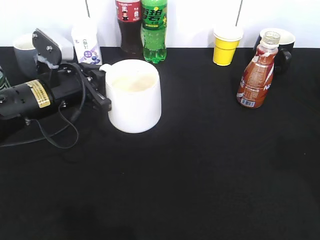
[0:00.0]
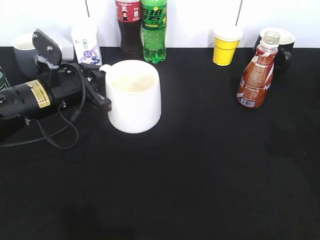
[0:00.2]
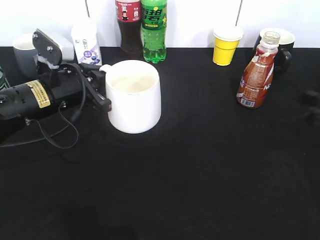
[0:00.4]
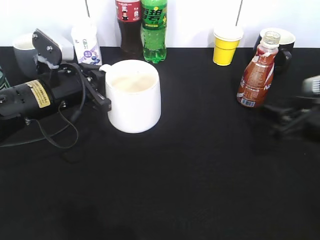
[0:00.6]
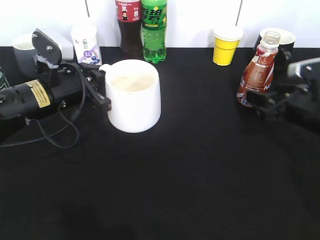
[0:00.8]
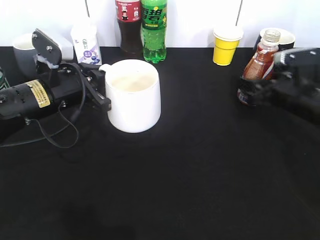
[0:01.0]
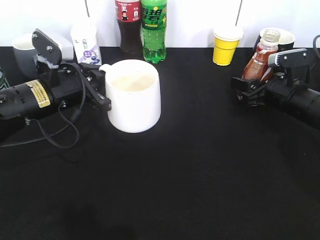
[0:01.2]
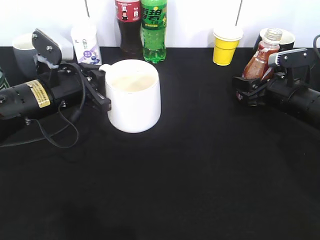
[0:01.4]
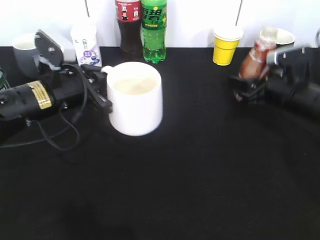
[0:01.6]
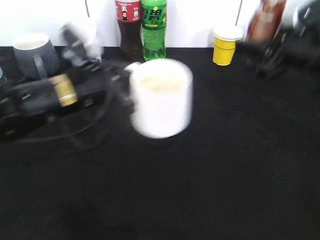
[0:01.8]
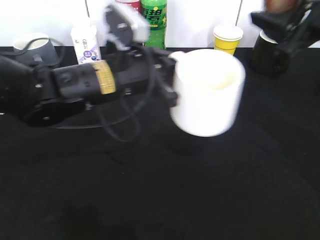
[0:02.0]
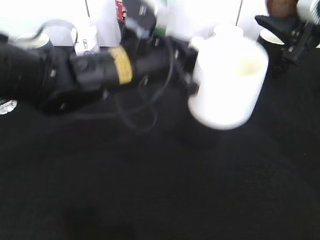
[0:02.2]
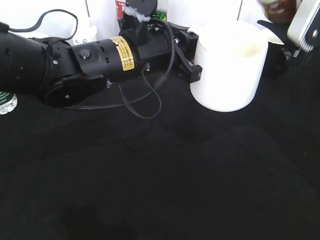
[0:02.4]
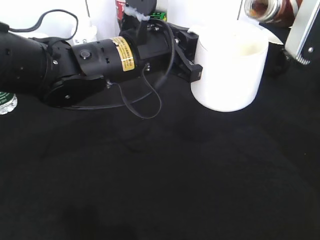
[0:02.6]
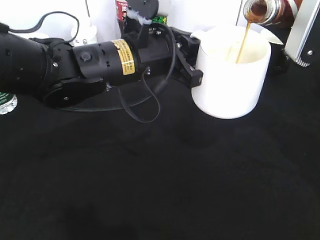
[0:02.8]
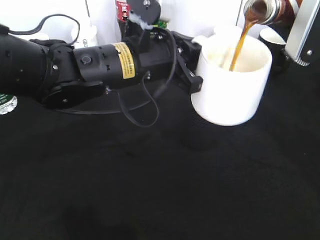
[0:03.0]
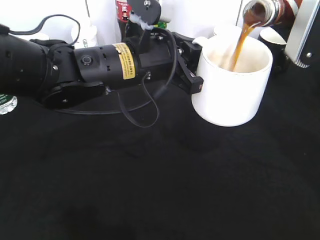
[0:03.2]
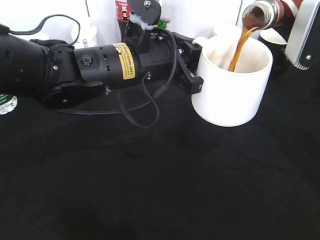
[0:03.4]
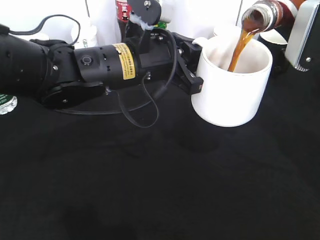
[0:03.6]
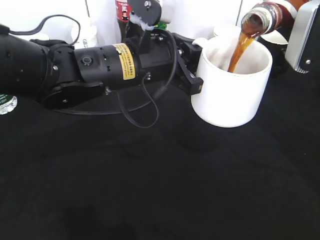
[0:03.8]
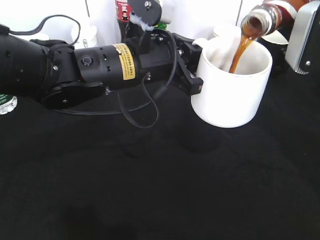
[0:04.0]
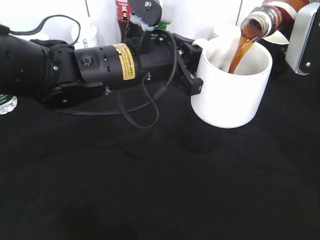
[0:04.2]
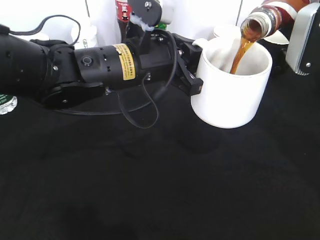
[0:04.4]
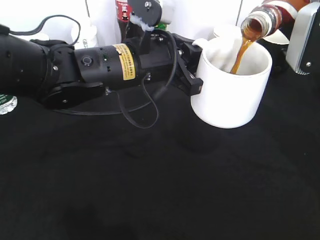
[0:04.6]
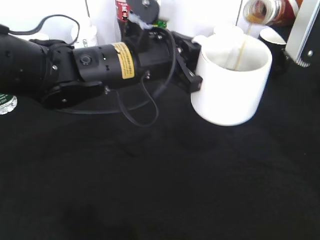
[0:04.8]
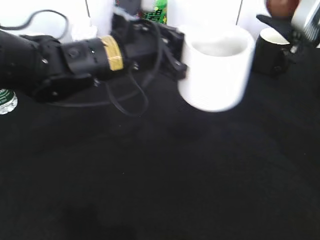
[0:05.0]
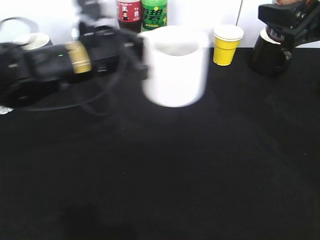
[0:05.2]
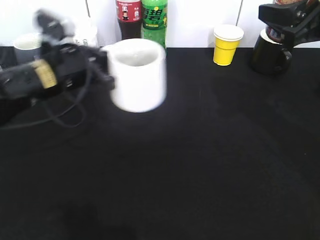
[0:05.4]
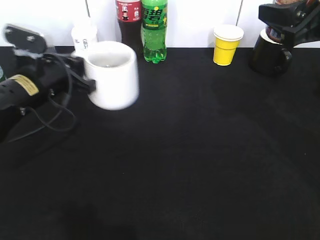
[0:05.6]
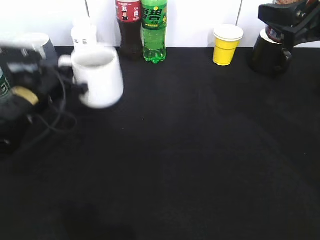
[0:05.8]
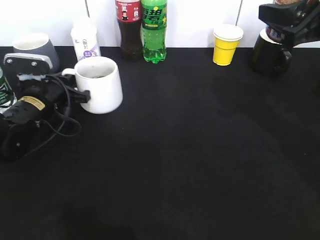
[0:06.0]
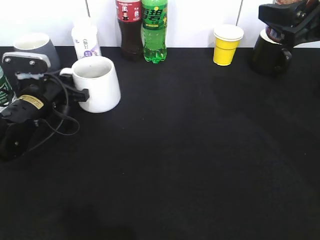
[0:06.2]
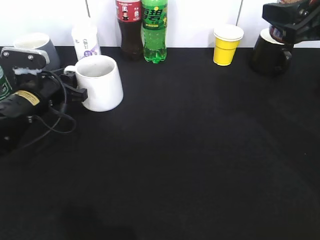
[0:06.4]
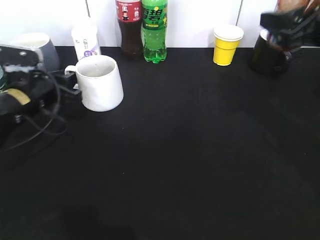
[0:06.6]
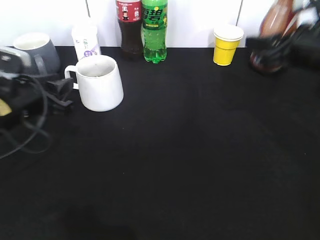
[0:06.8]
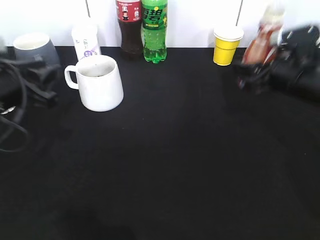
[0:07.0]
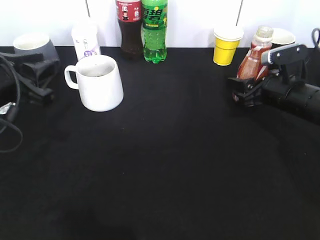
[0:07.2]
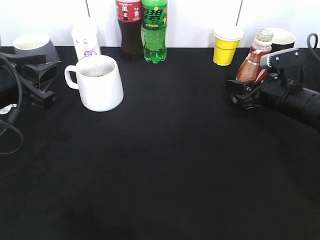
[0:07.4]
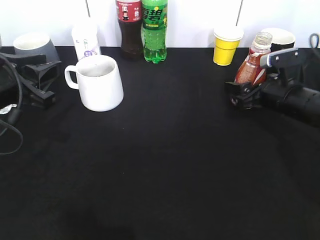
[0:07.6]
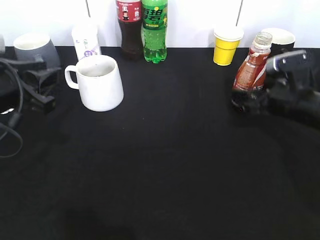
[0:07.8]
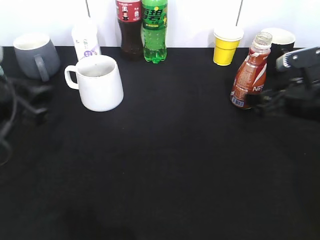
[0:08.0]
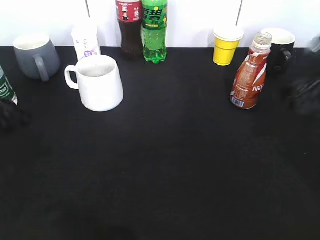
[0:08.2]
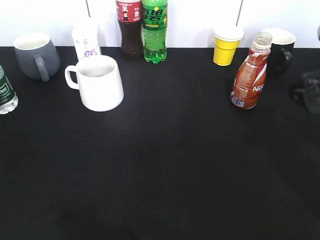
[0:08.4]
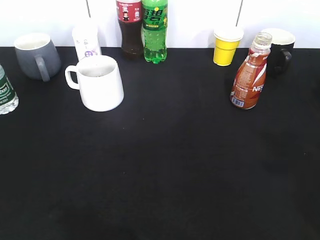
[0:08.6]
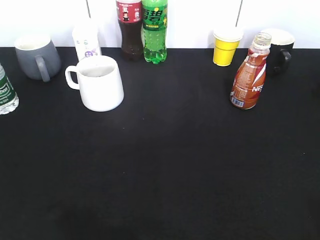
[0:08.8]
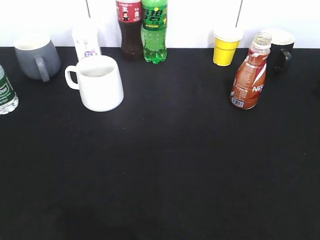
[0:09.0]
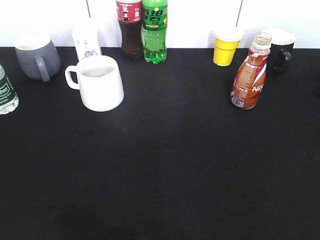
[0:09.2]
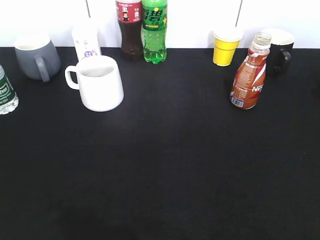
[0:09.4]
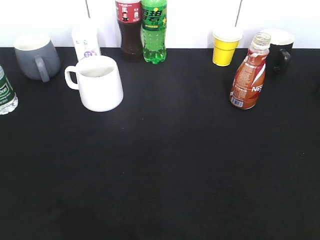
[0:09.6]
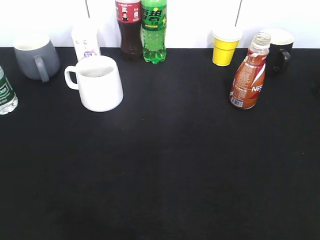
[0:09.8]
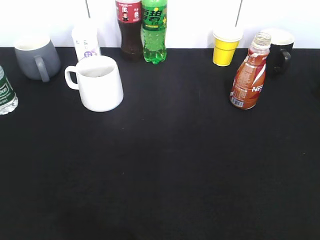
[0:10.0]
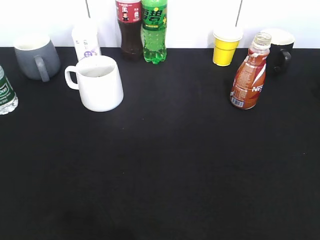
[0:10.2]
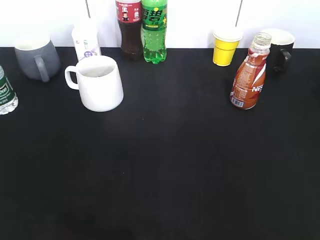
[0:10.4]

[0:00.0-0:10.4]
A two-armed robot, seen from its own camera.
Step, 0:00.0 to 0:01.4: Grasp the bottle with coffee with right gripper.
Step, 0:01.6 to 0:05.2: Pour the coffee from bottle to cup with right gripper.
Step, 0:05.4 to 0:06.6: Place the white cup on the table with left gripper.
Step, 0:06.8 to 0:08.0: Place the coffee bottle on the table with right gripper.
0:00.0 to 0:01.4: The right gripper moves forward and downward, about 30 cm, and closes.
0:01.4 to 0:03.0: The left gripper heads to the right and upward, covering approximately 15 cm; the right gripper shifts roughly 20 cm upward.
0:03.0 to 0:04.4: The grippers make only small movements.
0:04.4 to 0:06.0: The left gripper travels to the left and downward by roughly 20 cm.
0:06.0 to 0:07.4: The right gripper travels downward by some 15 cm, while the left gripper moves upward and backward, approximately 15 cm, and opens its fingers.
0:07.4 to 0:09.0: The right gripper travels backward and upward by approximately 40 cm, and opens its fingers. The left gripper moves backward, some 25 cm.

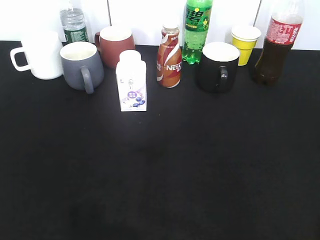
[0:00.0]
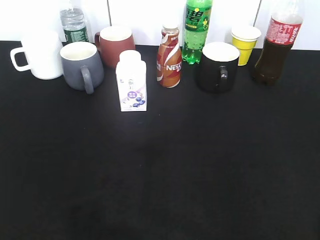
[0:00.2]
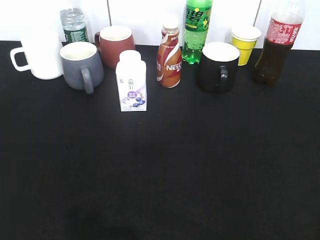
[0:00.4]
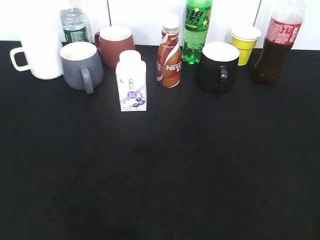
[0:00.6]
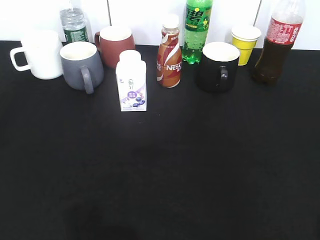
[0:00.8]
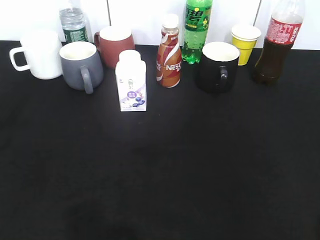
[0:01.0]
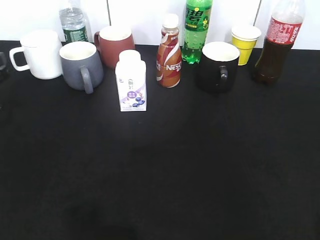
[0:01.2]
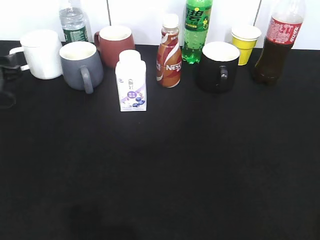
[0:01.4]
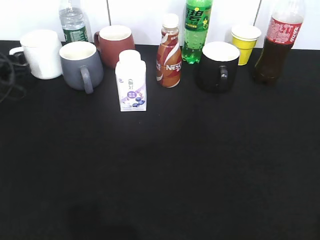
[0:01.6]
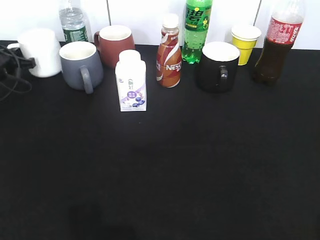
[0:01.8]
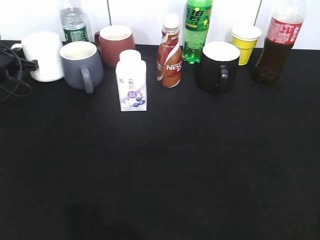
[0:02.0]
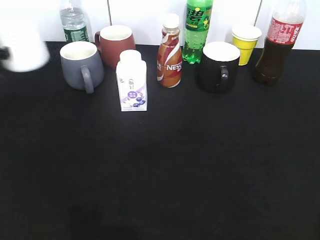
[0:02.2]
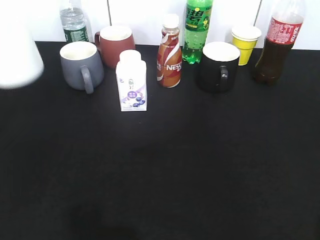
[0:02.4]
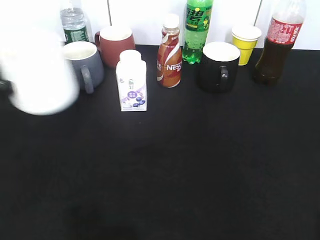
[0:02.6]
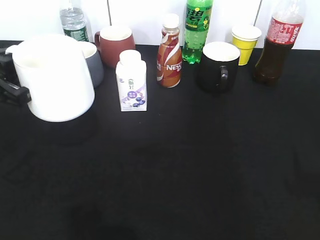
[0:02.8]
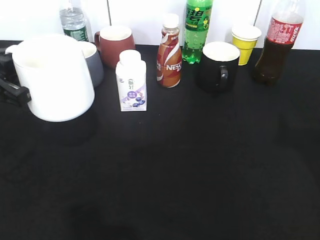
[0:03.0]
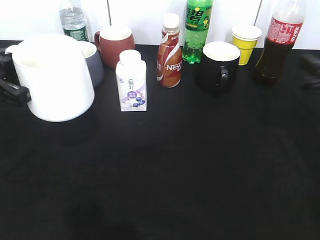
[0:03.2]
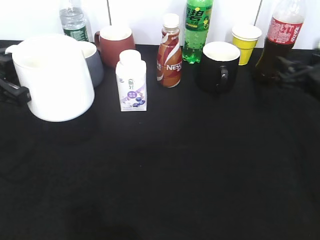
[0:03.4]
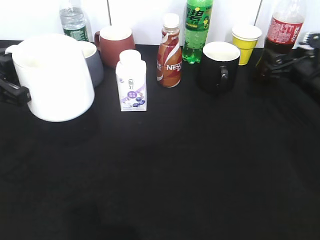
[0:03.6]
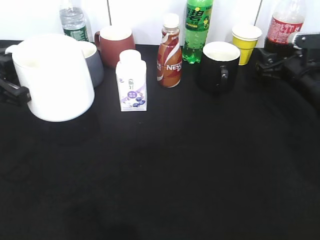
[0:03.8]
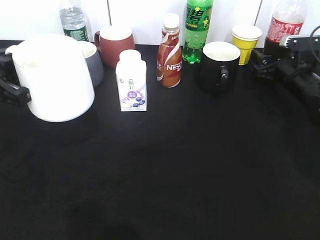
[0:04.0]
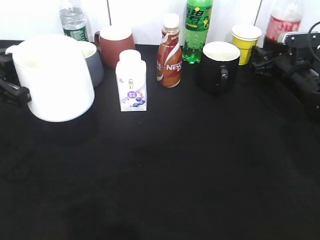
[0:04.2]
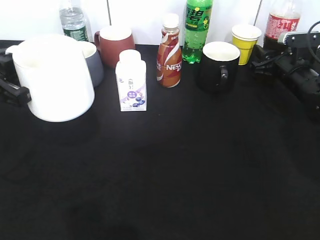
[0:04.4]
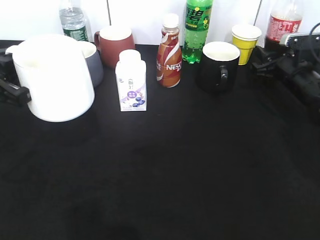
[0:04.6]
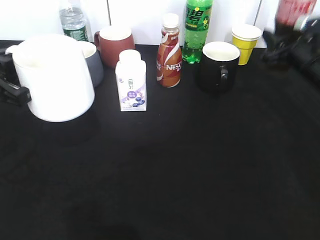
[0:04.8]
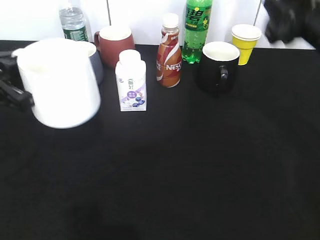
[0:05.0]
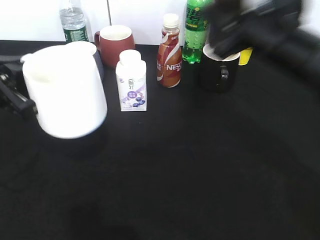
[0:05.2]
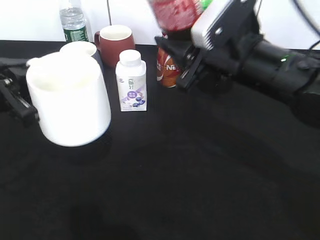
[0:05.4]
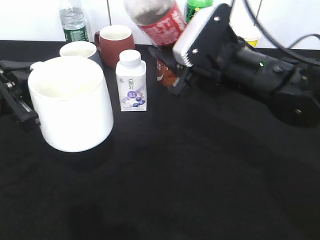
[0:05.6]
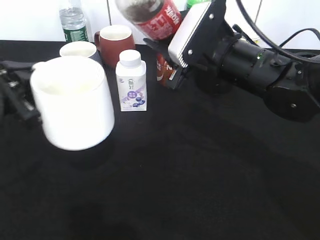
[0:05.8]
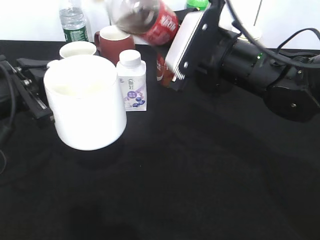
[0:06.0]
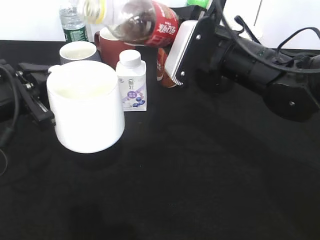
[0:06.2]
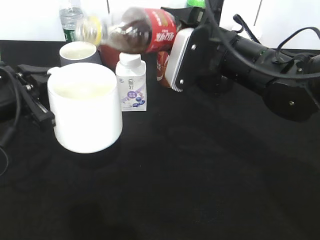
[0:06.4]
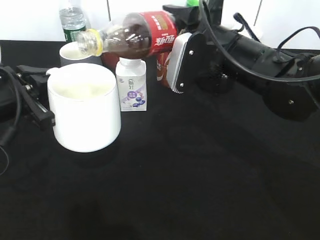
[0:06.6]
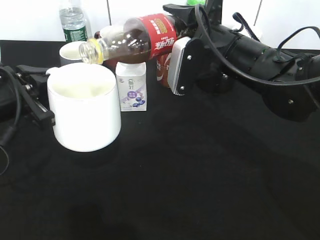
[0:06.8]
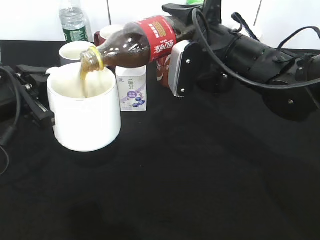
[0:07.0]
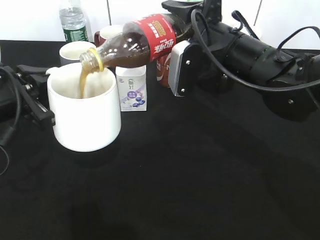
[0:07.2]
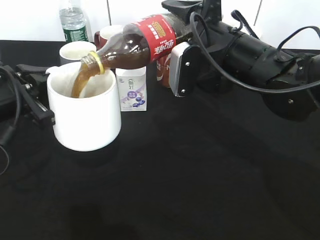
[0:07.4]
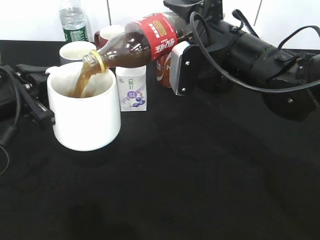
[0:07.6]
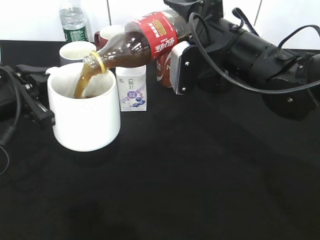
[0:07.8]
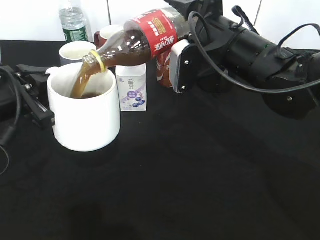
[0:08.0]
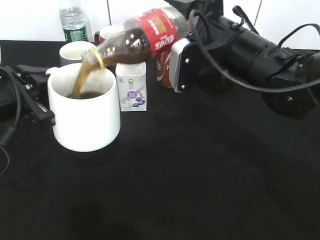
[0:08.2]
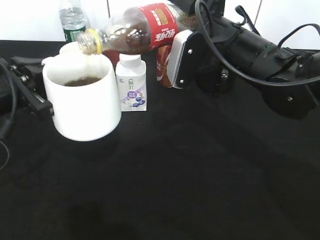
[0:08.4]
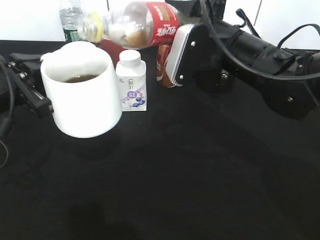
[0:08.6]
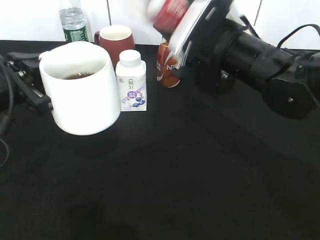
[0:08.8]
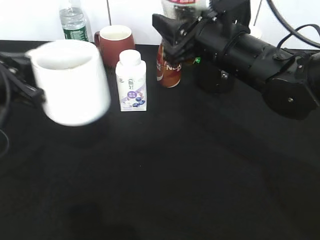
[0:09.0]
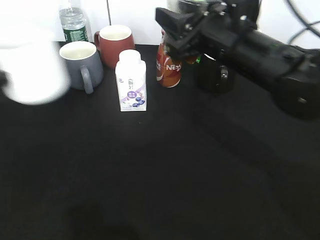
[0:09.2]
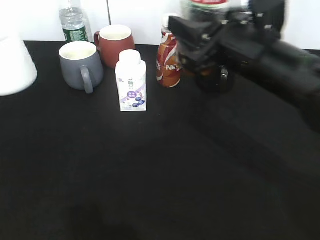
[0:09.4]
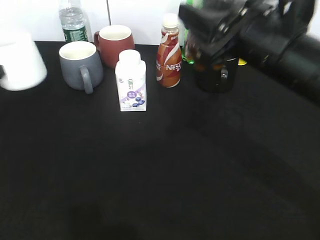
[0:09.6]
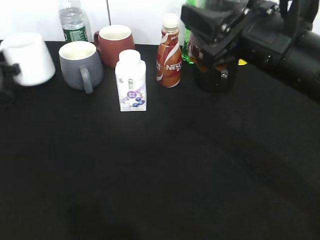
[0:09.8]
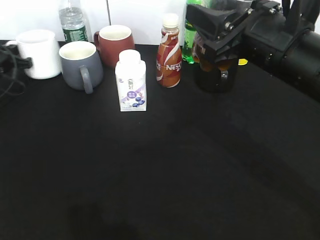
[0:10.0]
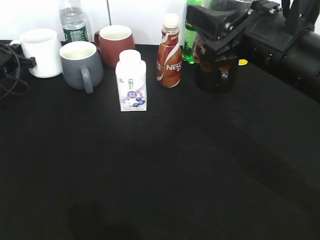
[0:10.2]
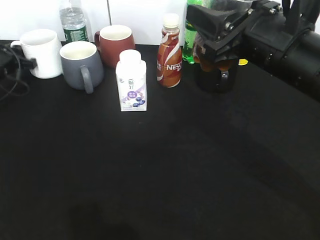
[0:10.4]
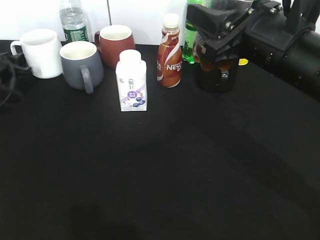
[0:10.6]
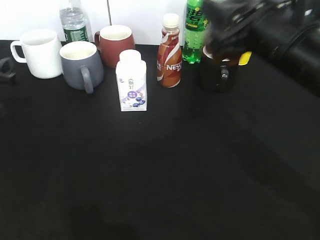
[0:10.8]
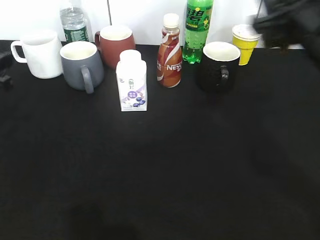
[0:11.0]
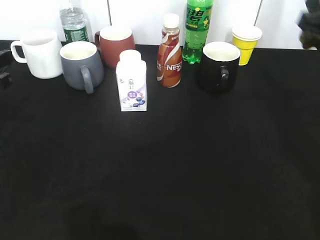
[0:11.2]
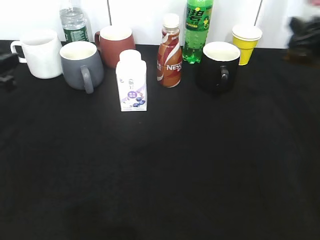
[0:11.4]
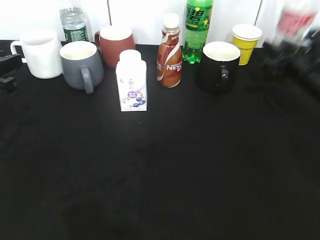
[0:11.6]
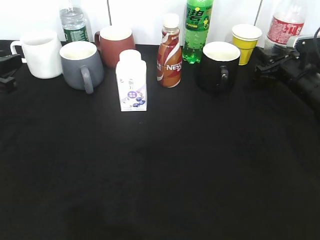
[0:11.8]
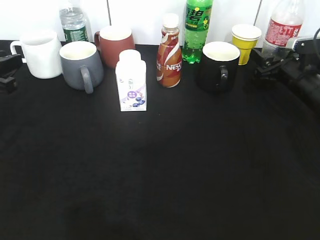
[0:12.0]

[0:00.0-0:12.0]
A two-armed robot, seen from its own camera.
Step, 0:02.0 to 0:02.6: Lift the white cup with left gripper.
Step, 0:03.0 to 0:04.4: Grasp the bottle with cola with right gripper.
Step, 0:04.8 to 0:08.6: Pour the cola from bottle to cup with right gripper.
Step, 0:08.8 to 0:10.8: Place the white cup on the table with left gripper.
0:00.0 to 0:01.6: The left gripper moves forward, some 40 cm.
0:01.6 to 0:03.0: The left gripper moves backward, upward and to the right, roughly 20 cm, and closes its fingers.
0:03.0 to 0:04.4: The right gripper goes some 30 cm forward and downward, and closes its fingers.
0:04.4 to 0:06.0: The right gripper is displaced to the left, backward and upward by about 25 cm.
0:09.0 to 0:10.4: The right gripper goes some 5 cm backward, while the left gripper goes about 25 cm forward, to the left and downward, and opens its fingers.
0:10.4 to 0:12.0: The left gripper heads backward and upward, covering roughly 20 cm. Meanwhile the right gripper heads downward, forward and to the right, covering about 25 cm, and opens up.
